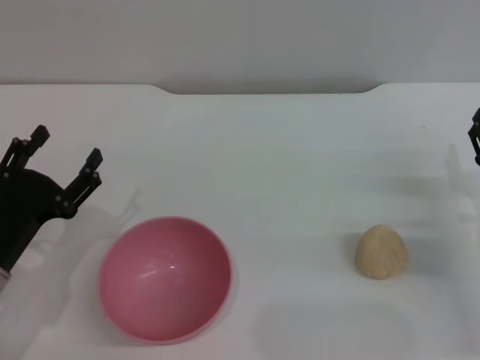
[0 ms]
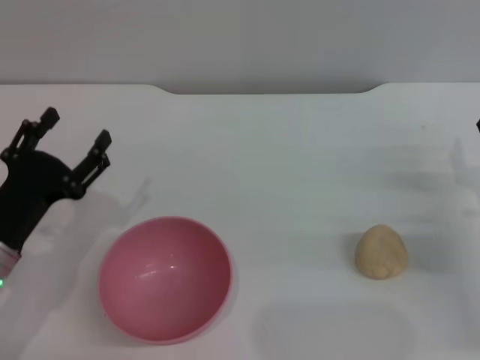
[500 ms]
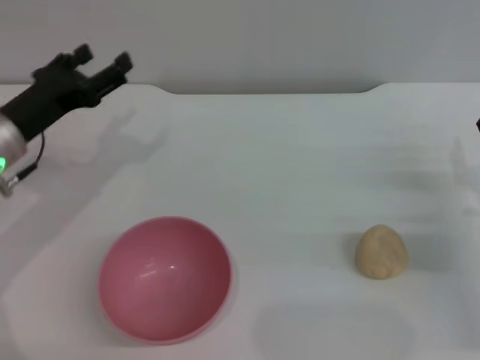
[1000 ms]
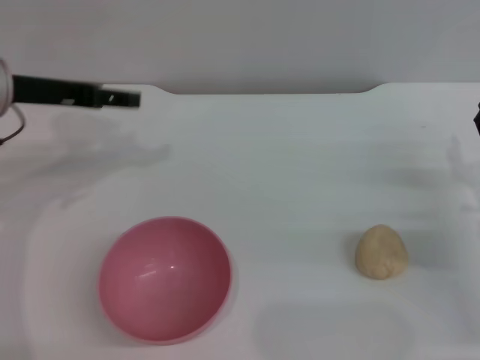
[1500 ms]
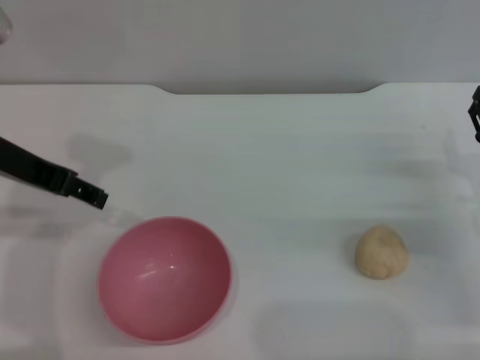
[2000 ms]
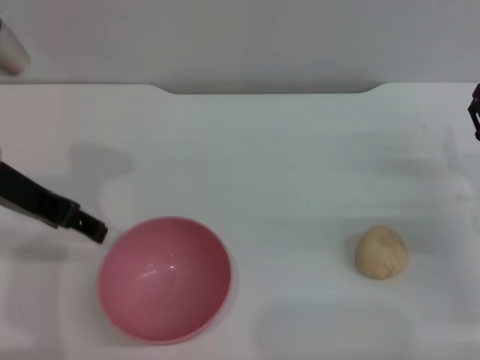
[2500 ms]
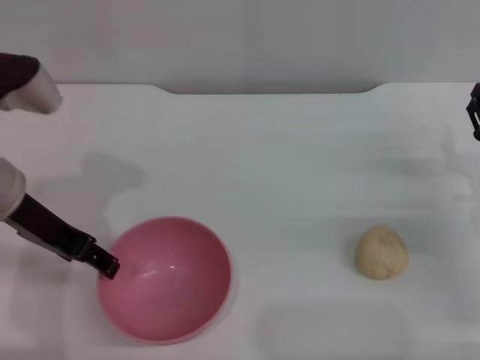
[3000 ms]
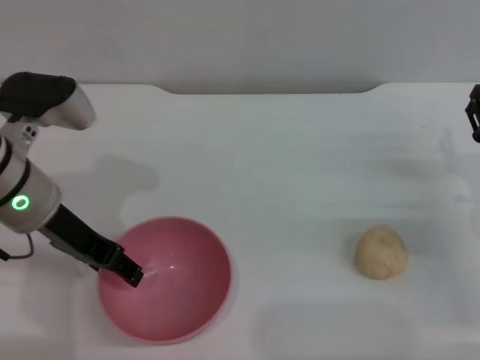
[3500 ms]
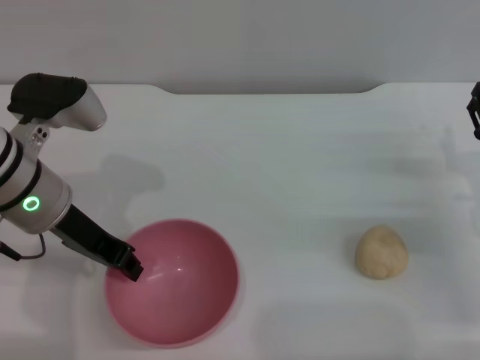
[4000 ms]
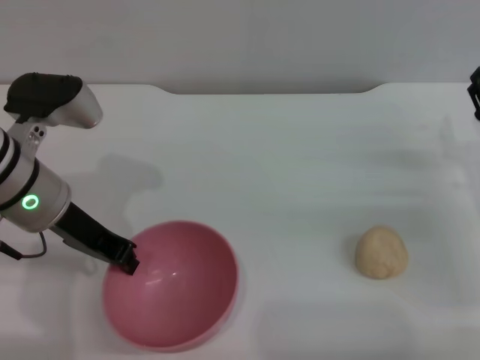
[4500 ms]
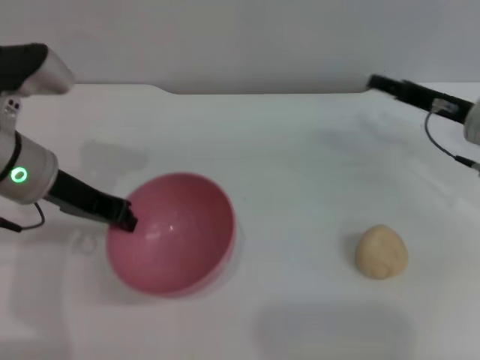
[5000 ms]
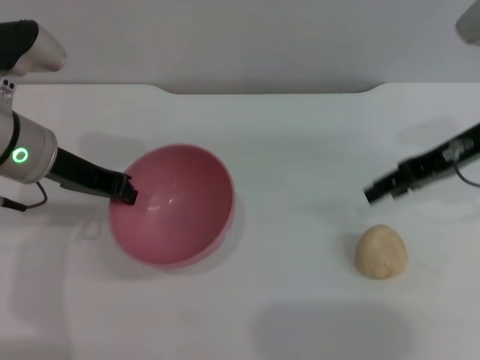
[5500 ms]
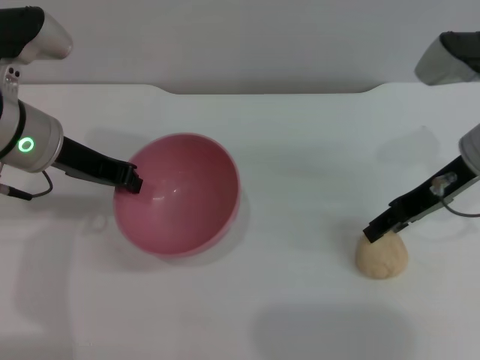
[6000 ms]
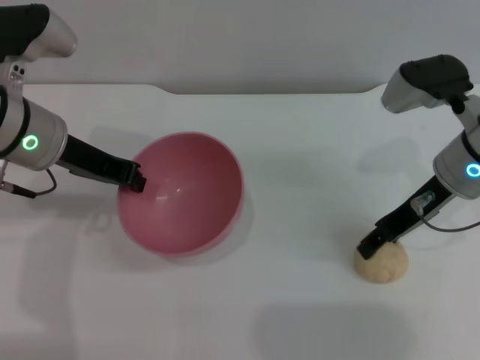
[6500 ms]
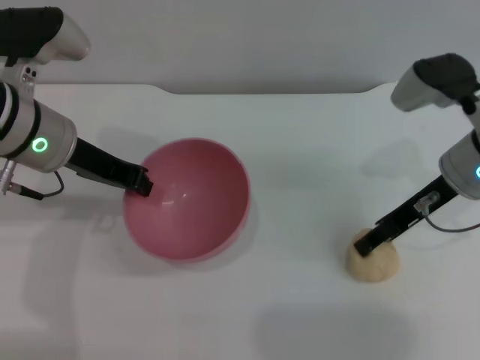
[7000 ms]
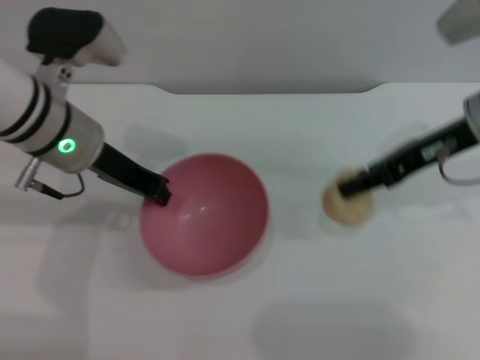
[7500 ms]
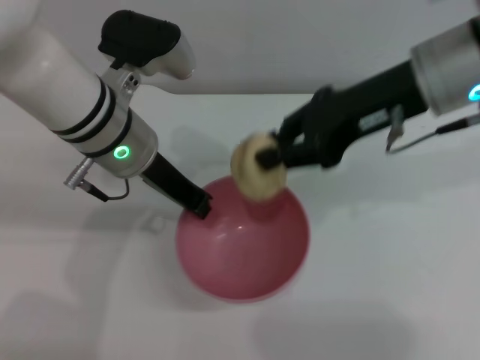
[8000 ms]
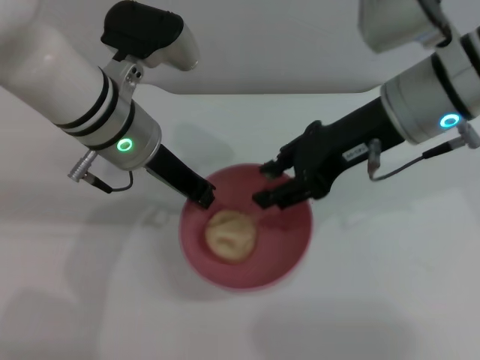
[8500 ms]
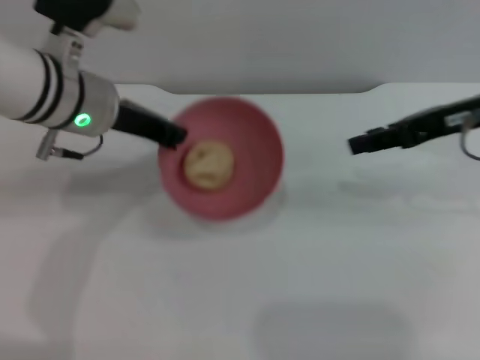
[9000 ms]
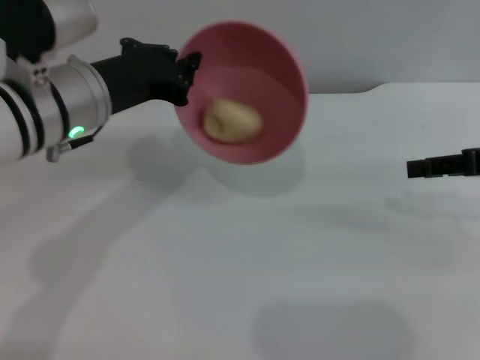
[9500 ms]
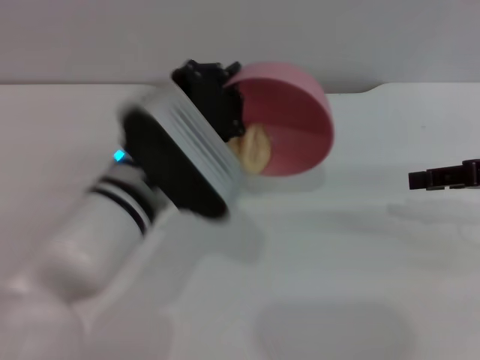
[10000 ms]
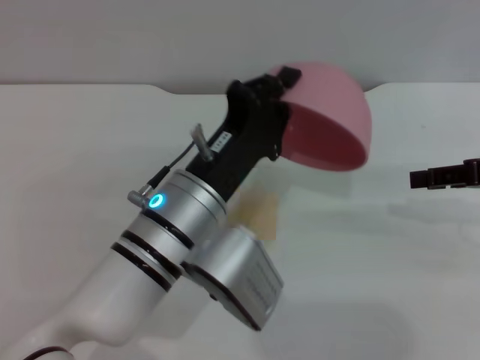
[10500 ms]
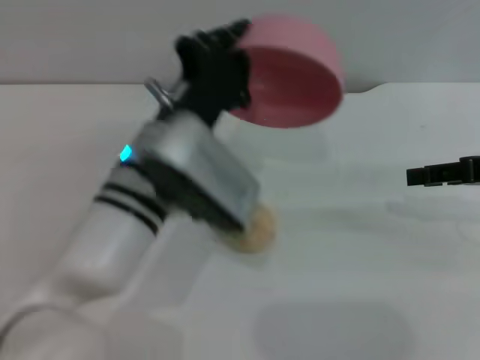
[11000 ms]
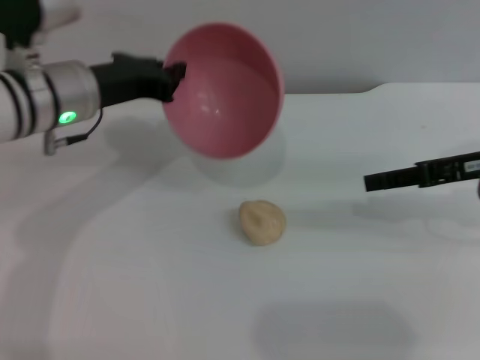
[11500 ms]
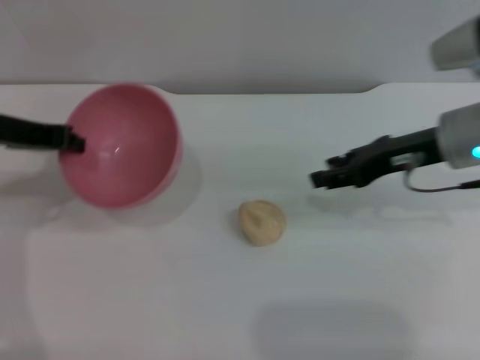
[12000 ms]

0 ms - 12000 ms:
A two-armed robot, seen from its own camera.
Task of the whole recording: put the egg yolk pastry into the pink bowl and pour it out repeatedly.
Step, 0 ms - 4500 ms: Pick up the bowl with the left gripper.
Step, 5000 ms - 7500 ms: Pick up the egg yolk pastry with the right gripper.
Step, 8500 ms - 10500 ms: Pour the egg yolk pastry out of bowl.
0 ms - 2000 ms: The left gripper shifts roughly 20 cm upward and forward.
2000 ms - 4000 ms: The left gripper shifts some 5 cm downward, and closes its fingers.
4000 ms - 6000 ms: The right gripper heads upward, forward and to the left, covering approximately 15 cm; the left gripper closes up.
6000 ms - 8000 ms: The left gripper goes about 10 cm to the right, while the right gripper moves upward and to the left, roughly 10 cm, and closes its fingers.
8000 ms - 10000 ms: The left gripper heads backward, covering approximately 5 cm. The right gripper shifts roughly 15 cm to the right and downward, and opens.
10000 ms - 12000 ms: The left gripper shifts about 20 cm to the left and forward; the right gripper shifts about 10 cm to the left and forward.

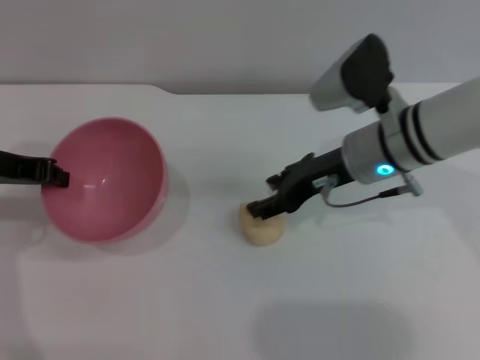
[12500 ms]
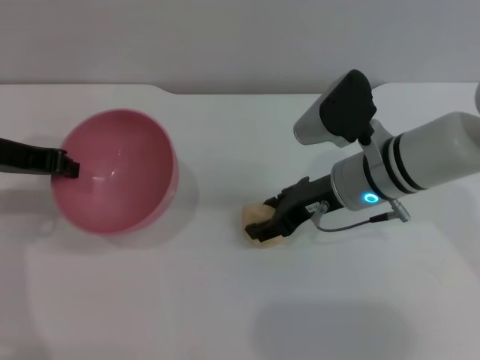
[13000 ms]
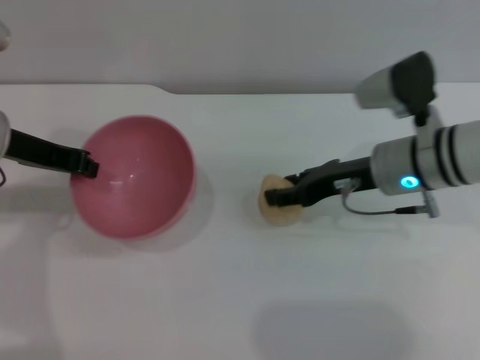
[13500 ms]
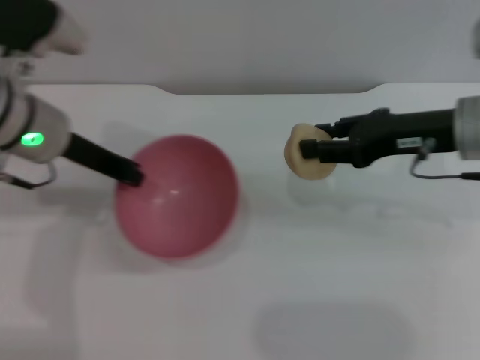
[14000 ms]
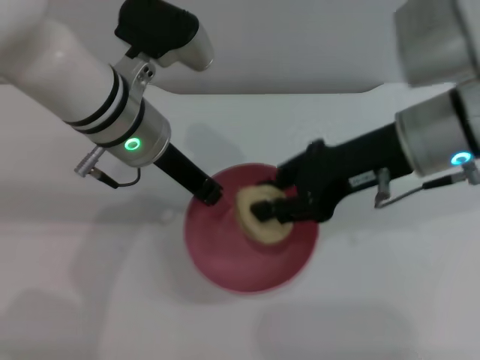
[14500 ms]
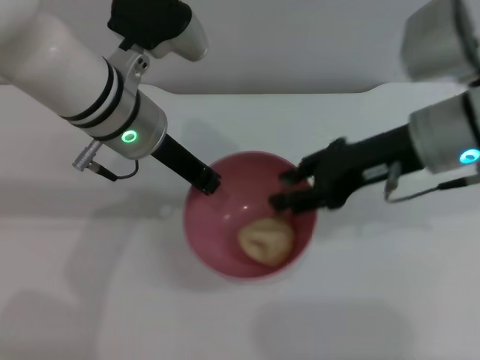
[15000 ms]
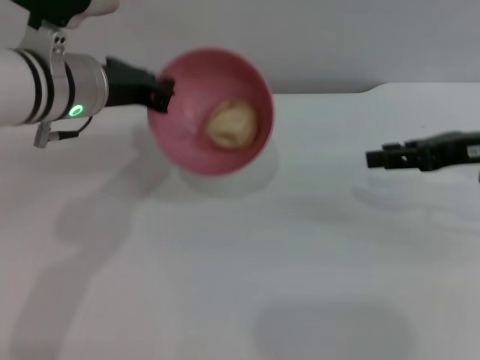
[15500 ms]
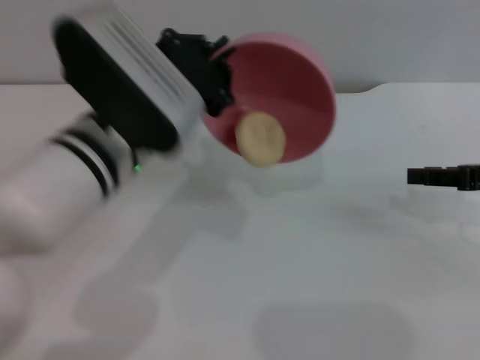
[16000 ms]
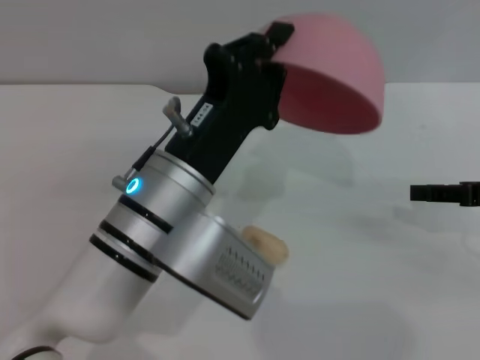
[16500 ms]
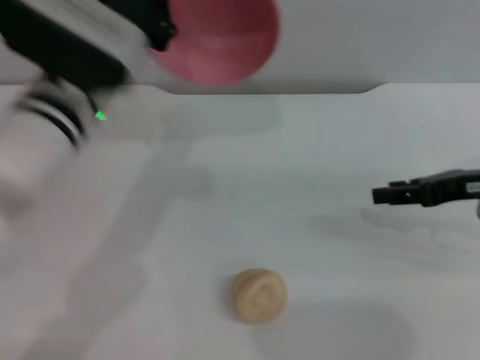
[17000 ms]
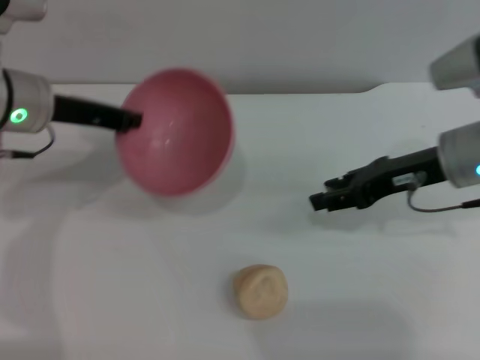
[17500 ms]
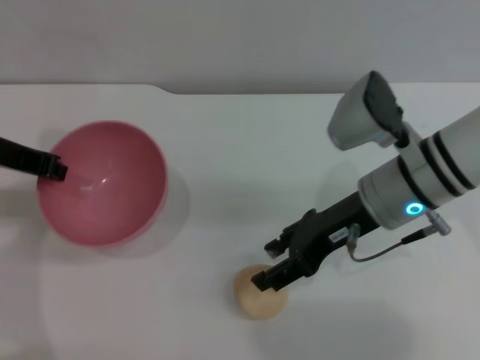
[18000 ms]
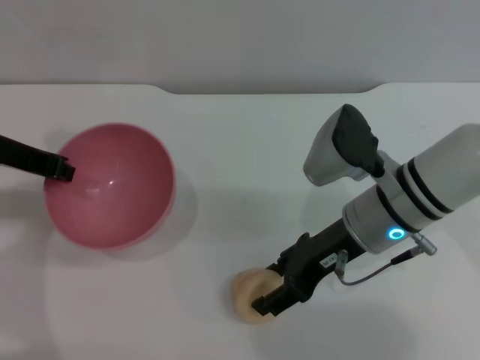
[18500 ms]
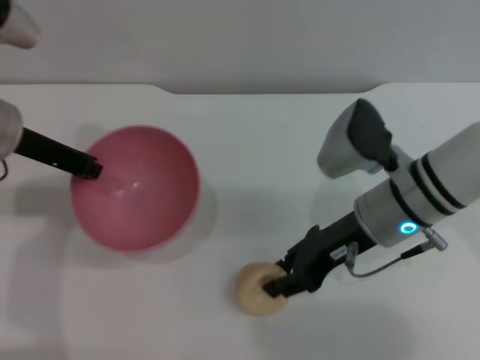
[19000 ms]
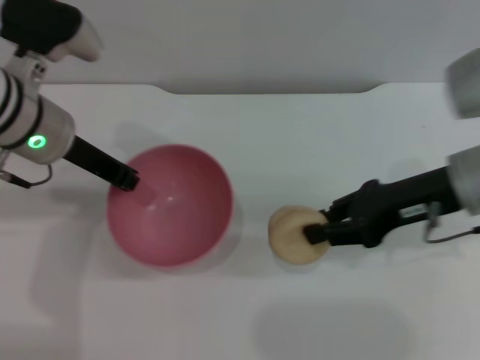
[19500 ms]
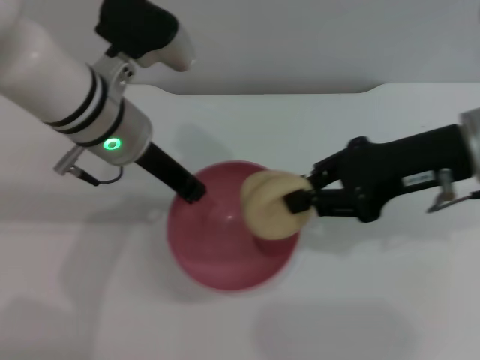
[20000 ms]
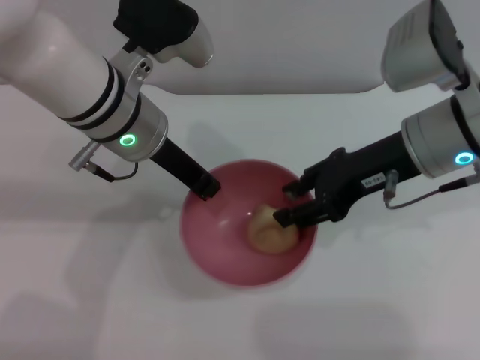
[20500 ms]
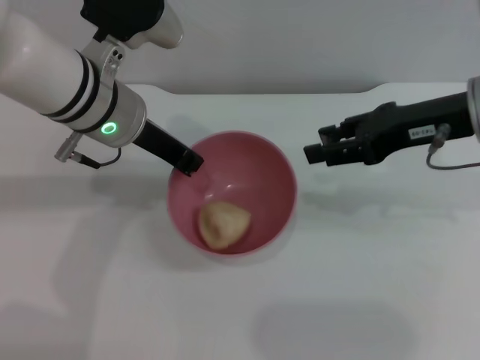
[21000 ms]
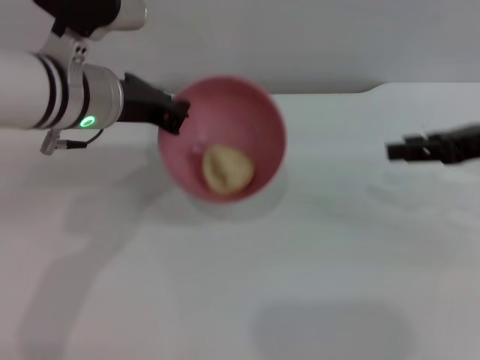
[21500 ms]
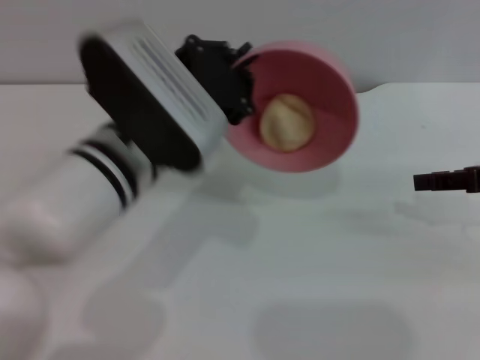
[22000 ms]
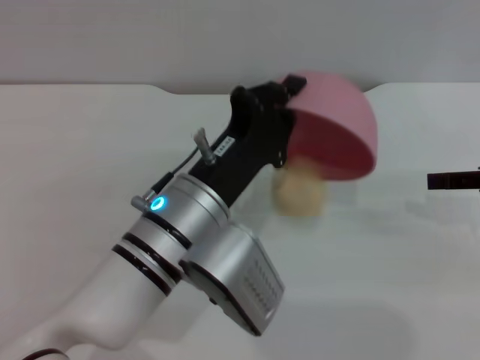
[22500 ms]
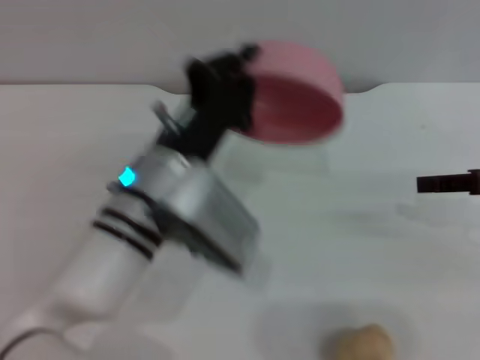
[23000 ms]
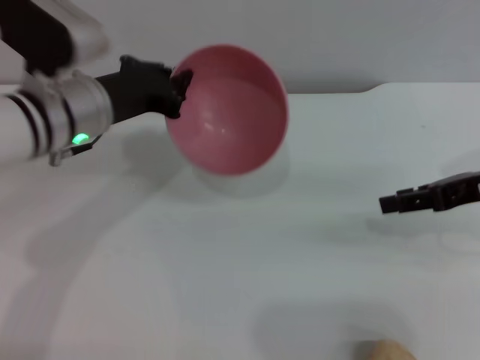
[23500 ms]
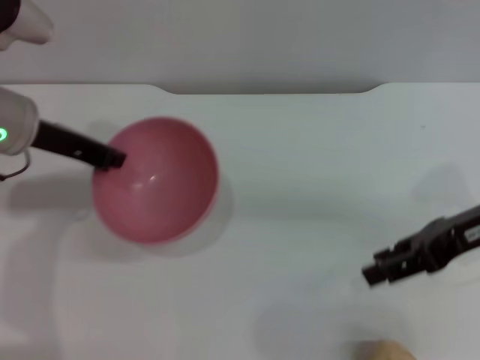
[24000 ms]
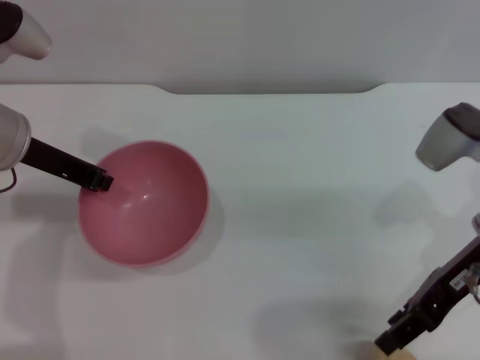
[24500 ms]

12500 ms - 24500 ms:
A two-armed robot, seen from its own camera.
Task of the whole recording: put the egg yolk pastry into the pink bowl and pour it out repeatedly.
Step, 14000 ms - 15000 ms: Place the egg yolk pastry into the bowl.
Step, 15500 ms - 16500 ms: Pour the egg yolk pastry out of bowl.
Step, 17000 ms - 19500 ms: Pick up the egg yolk pastry with the right gripper.
Step, 20000 ms - 21000 ms: Place the egg yolk pastry into the bowl.
Step, 21500 ms - 22500 ms: Pour the egg yolk pastry out of bowl.
12500 ms - 14500 ms: The left gripper goes approximately 20 cm to the right. The right gripper moves upward, approximately 5 cm, and closes its fingers.
14500 ms - 16500 ms: The left gripper shifts roughly 10 cm backward. Meanwhile the right gripper is displaced to the right by about 15 cm.
16500 ms - 18500 ms: The left gripper is displaced to the left and forward by some 20 cm; the right gripper goes approximately 20 cm to the left.
18500 ms - 20500 ms: The left gripper heads to the right, covering approximately 15 cm. The right gripper is displaced upward by about 10 cm, and closes.
20500 ms - 22500 ms: The left gripper heads backward and downward, covering roughly 15 cm, while the right gripper is displaced to the right by some 15 cm.
22500 ms - 24500 ms: The left gripper is displaced to the left, forward and upward by about 20 cm, while the right gripper travels to the left by some 10 cm.

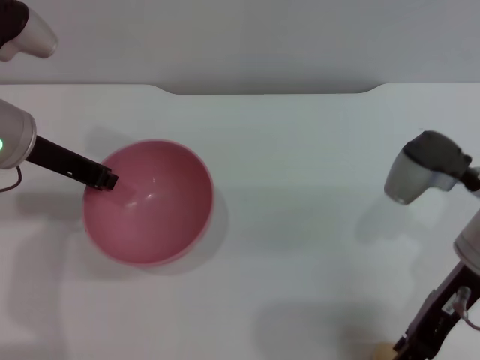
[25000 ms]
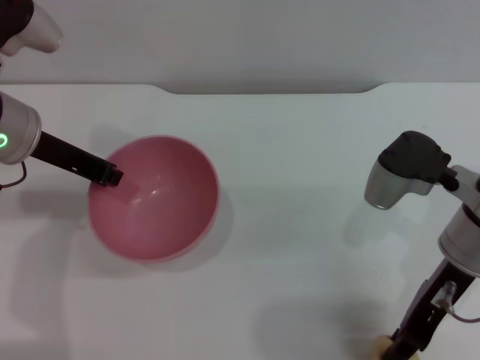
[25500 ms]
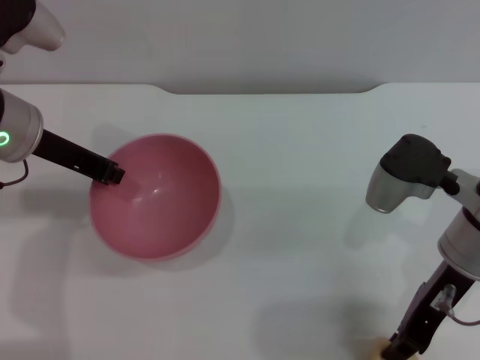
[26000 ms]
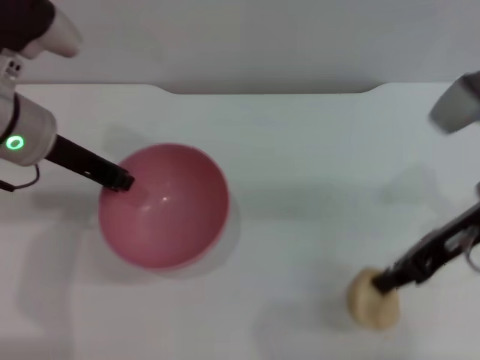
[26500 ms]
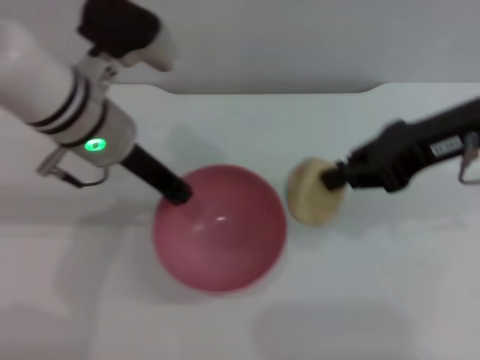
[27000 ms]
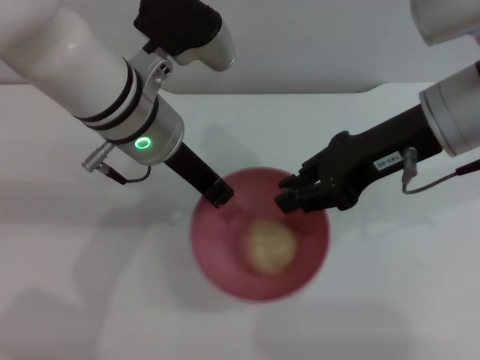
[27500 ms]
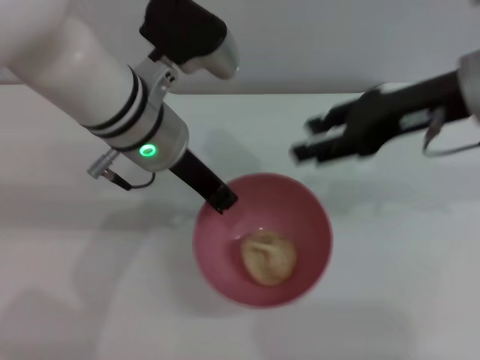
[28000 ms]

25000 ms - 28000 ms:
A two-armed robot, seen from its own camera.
Task of the whole recording: put the egg yolk pastry into the pink bowl and pour it out repeatedly.
Step, 27000 ms - 27500 ms: Place the egg yolk pastry into the bowl.
25000 ms - 26500 ms: The right gripper closes.
26500 ms - 28000 ms: The left gripper goes about 10 cm to the right. The right gripper goes about 5 cm upward, and opens.
